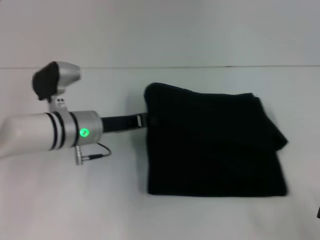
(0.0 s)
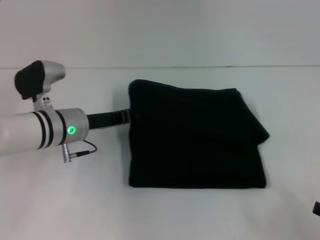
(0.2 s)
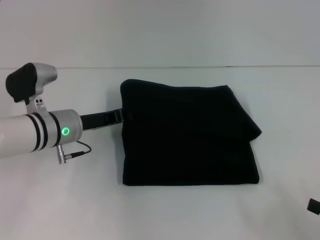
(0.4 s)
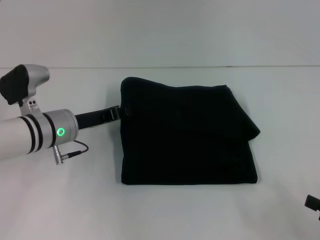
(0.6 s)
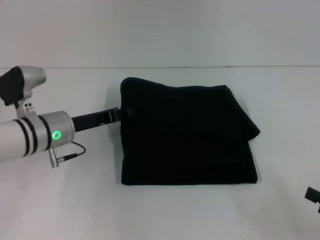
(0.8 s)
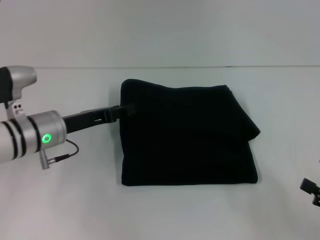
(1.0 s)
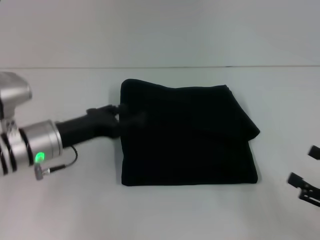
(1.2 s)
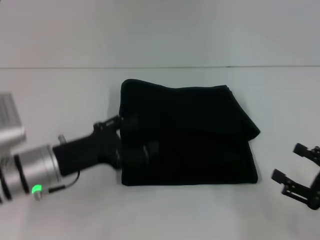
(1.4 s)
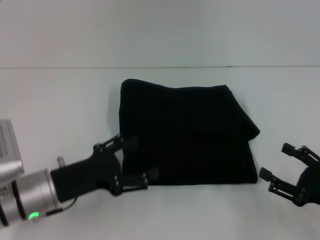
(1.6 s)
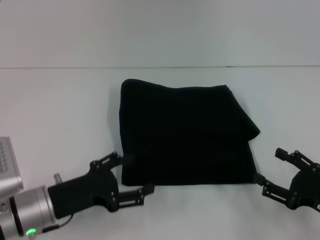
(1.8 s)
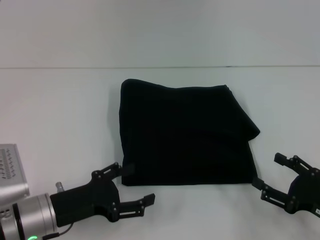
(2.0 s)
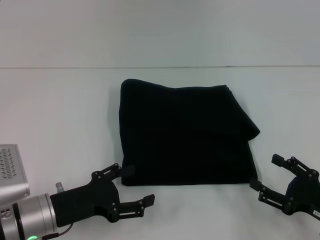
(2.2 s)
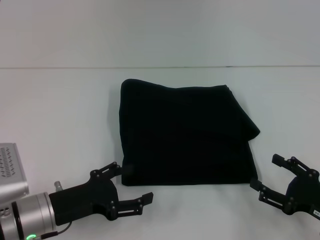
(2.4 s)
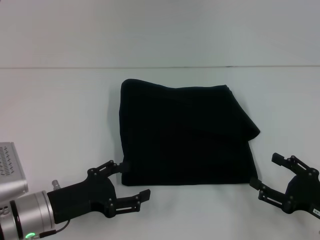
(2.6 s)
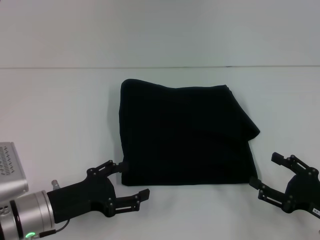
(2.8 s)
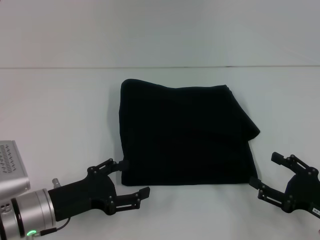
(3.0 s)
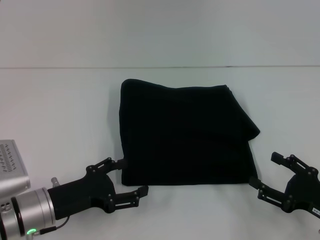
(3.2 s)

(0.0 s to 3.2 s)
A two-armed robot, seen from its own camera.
0.0 s - 1.6 s: The right gripper travels to the left and forward by approximately 10 cm, while the left gripper moves backward and to the left, about 10 cm, and opens.
1.6 s - 3.2 s: There are only small adjustments of the grippers.

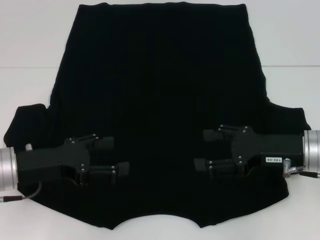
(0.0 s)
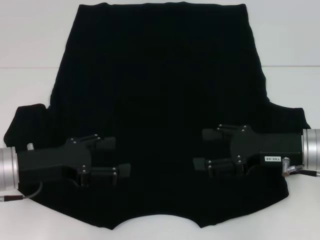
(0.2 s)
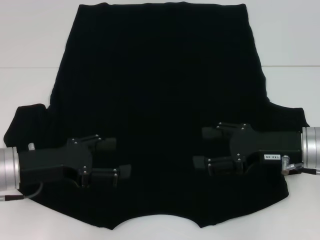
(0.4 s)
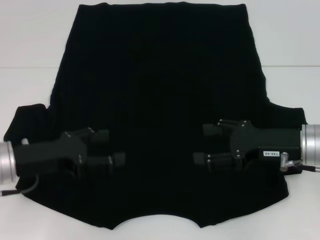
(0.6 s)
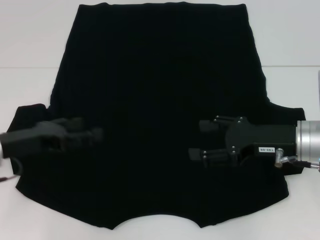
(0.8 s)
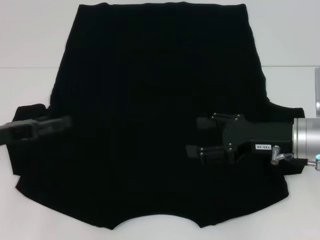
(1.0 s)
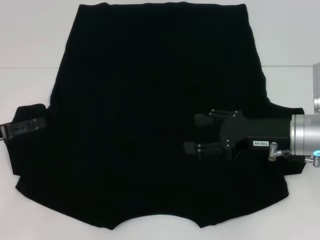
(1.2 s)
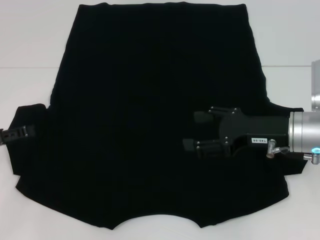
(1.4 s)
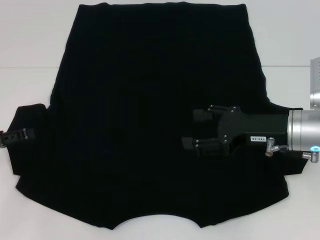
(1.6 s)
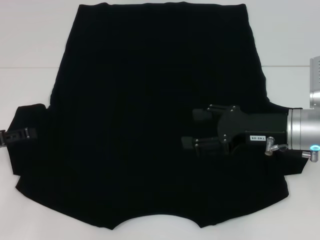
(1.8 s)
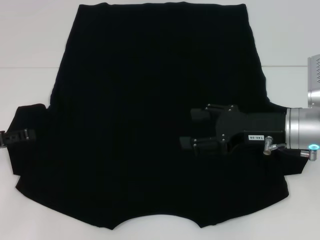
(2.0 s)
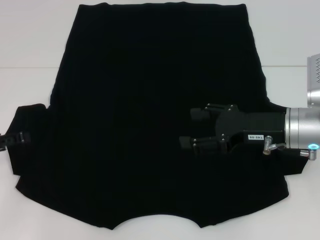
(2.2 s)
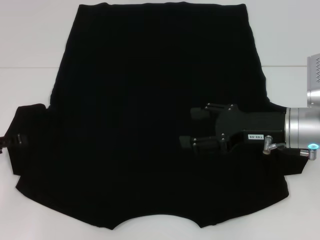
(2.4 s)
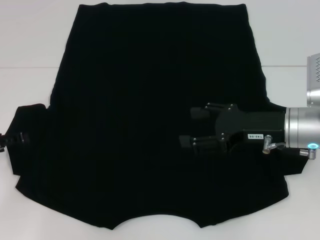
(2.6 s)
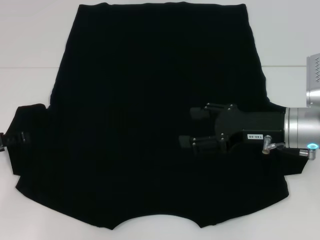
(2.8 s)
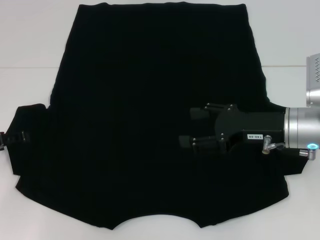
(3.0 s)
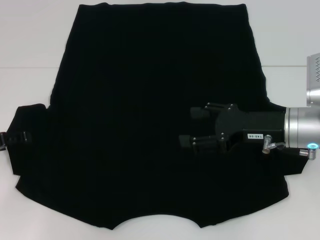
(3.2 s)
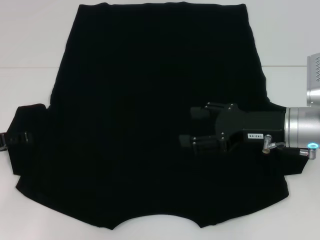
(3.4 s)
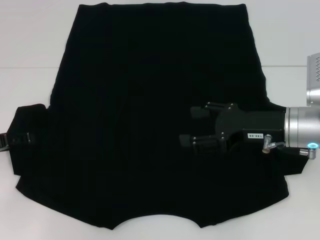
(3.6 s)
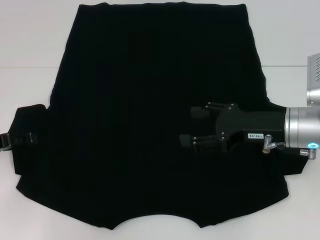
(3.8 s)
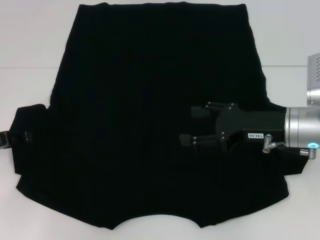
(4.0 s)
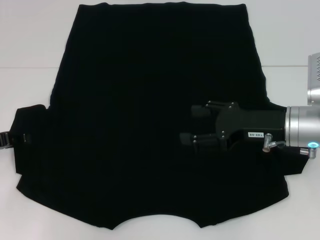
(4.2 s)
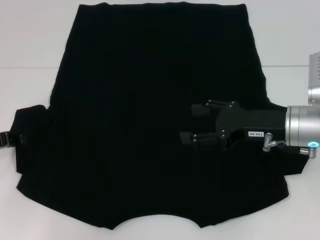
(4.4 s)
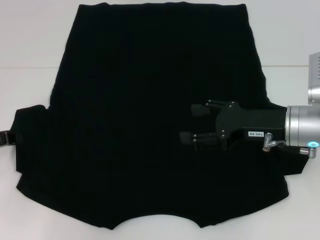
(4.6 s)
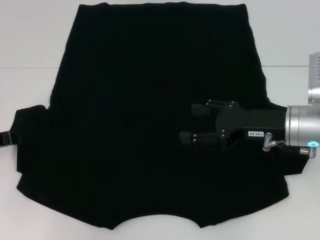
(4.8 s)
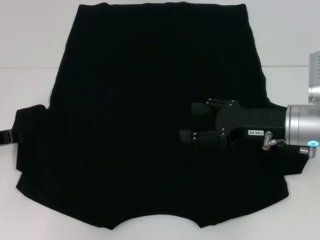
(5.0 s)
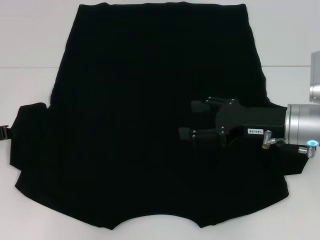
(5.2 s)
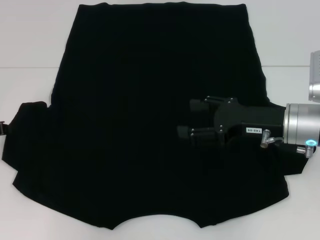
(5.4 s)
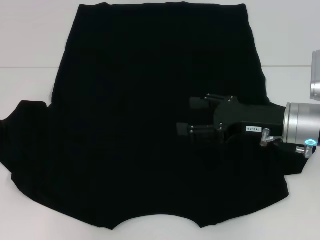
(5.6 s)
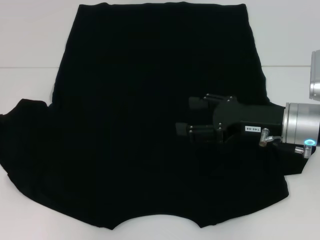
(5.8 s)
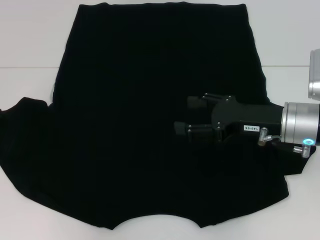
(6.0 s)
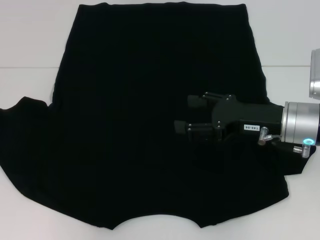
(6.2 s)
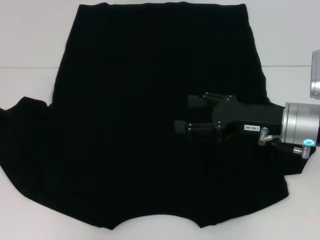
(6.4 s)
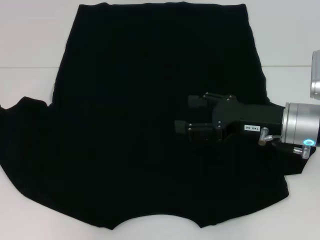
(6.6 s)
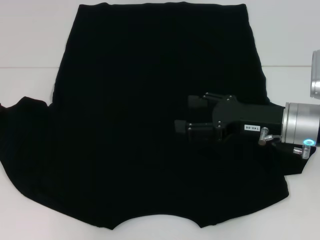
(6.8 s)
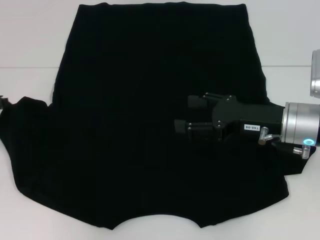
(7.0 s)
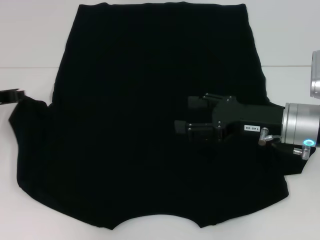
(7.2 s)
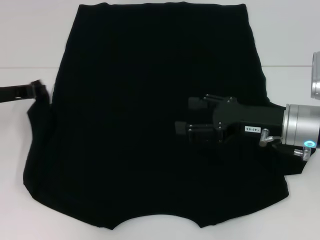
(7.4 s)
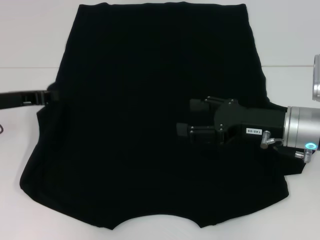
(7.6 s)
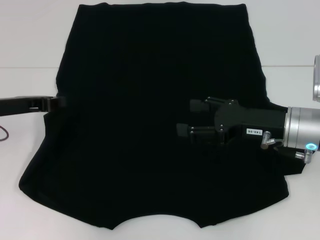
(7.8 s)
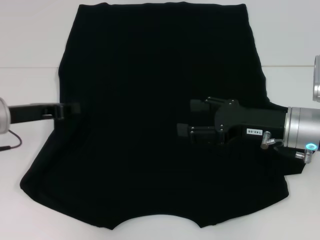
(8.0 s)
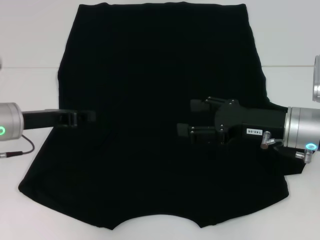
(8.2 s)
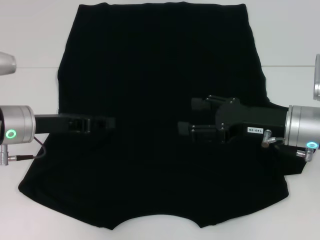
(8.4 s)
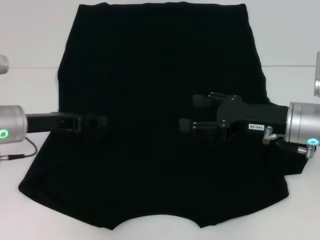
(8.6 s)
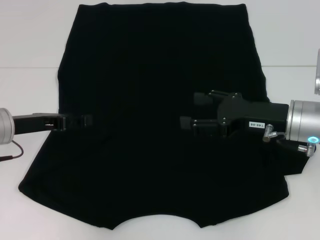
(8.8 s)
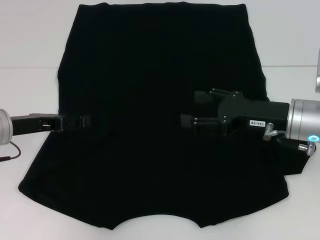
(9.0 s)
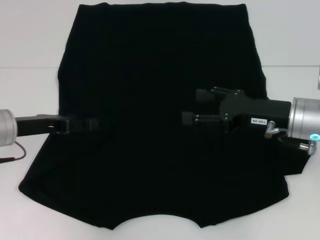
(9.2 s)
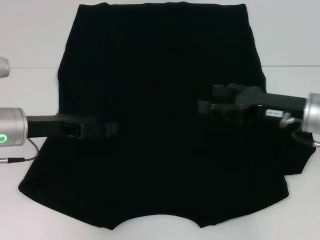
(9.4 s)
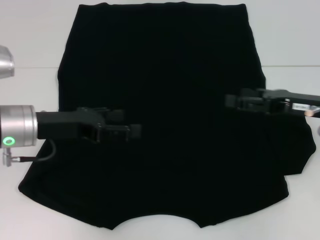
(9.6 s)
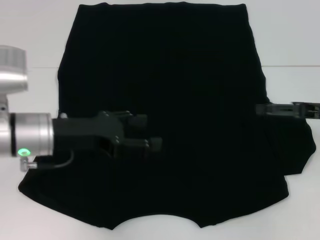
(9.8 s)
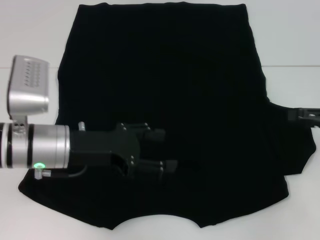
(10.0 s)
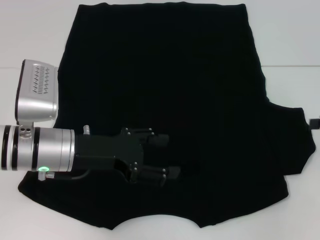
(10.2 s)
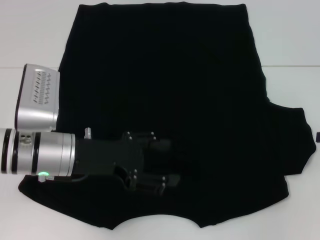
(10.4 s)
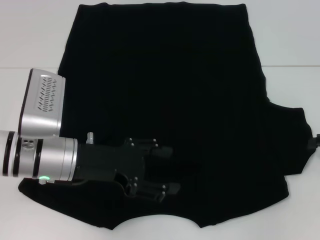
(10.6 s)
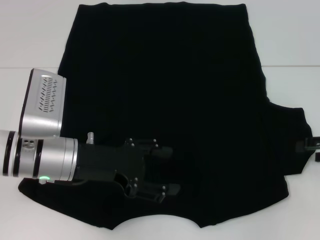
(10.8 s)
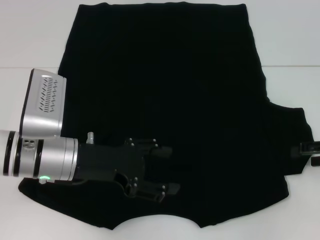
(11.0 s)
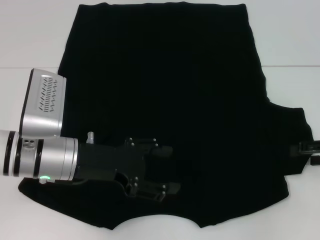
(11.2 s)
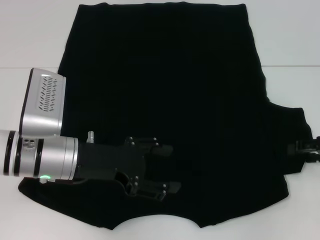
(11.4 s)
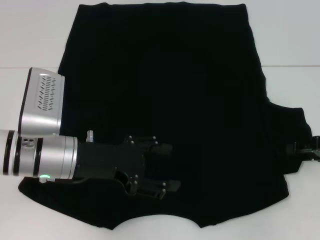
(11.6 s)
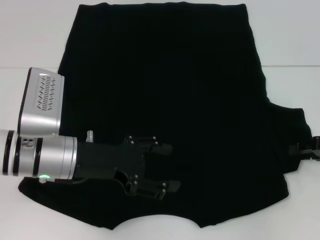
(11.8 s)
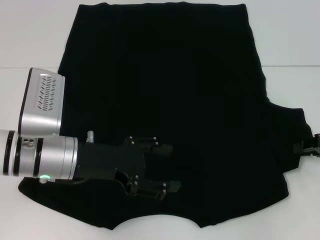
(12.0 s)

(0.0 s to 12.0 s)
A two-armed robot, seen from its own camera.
Step, 0.0 s - 8.4 s: Fold the bottom left sleeve with your left hand.
0.0 s - 1.6 s: The left gripper shifts about 10 cm to the left.
1.6 s - 3.0 s: The grippers stay close to where they were, moving slightly.
3.0 s - 4.4 s: The left gripper closes up.
4.4 s - 6.0 s: The left gripper closes its fingers.
6.0 s - 7.6 s: The left gripper shifts roughly 5 cm to the right.
7.6 s - 9.0 s: The left gripper opens.
9.0 s - 10.4 s: The left gripper shifts about 10 cm to the right, while the right gripper shifts roughly 20 cm to the right.
10.4 s - 12.0 s: The right gripper shifts by some 5 cm, and closes up.

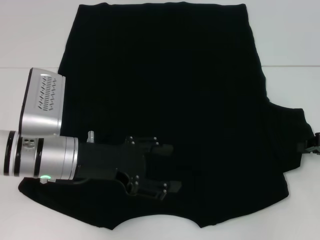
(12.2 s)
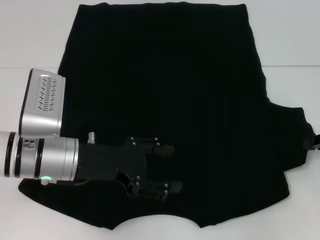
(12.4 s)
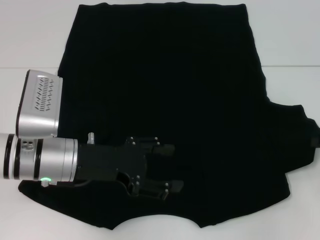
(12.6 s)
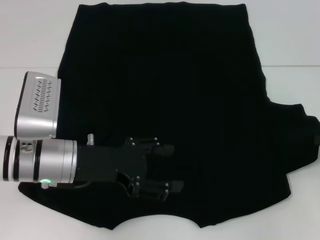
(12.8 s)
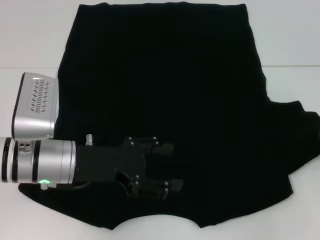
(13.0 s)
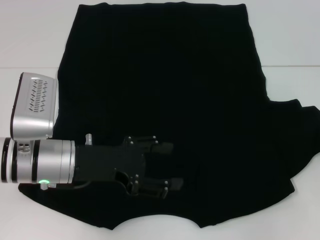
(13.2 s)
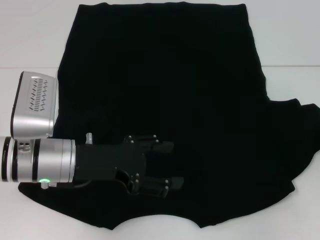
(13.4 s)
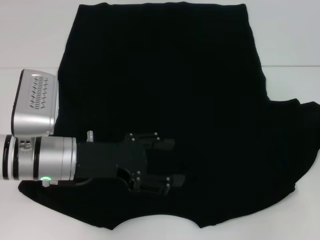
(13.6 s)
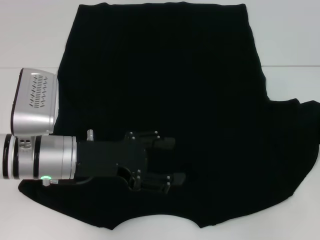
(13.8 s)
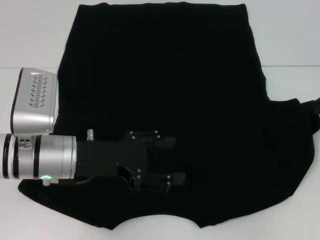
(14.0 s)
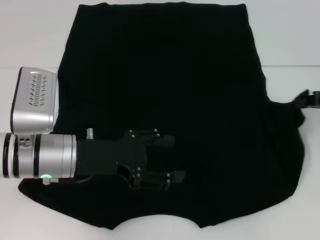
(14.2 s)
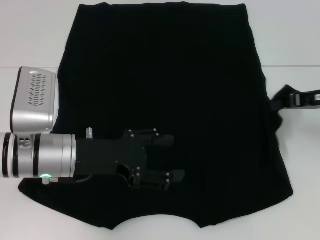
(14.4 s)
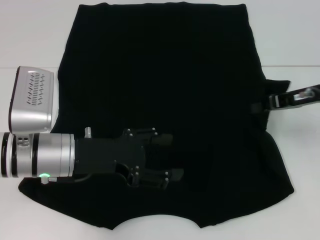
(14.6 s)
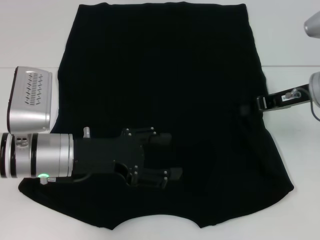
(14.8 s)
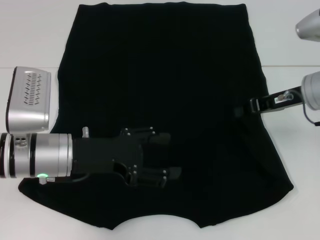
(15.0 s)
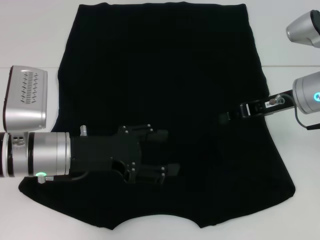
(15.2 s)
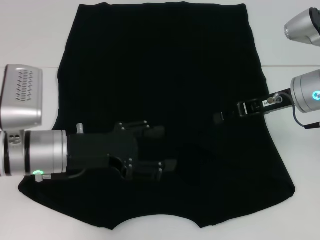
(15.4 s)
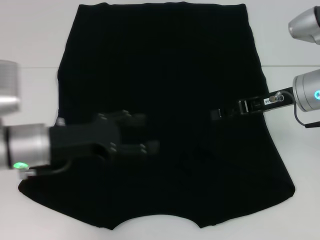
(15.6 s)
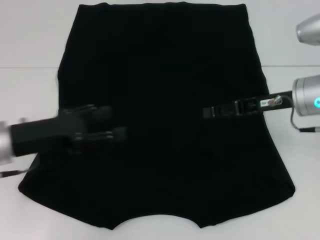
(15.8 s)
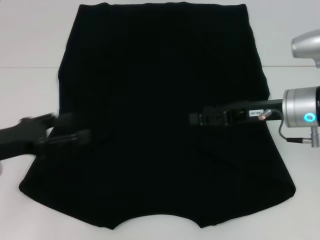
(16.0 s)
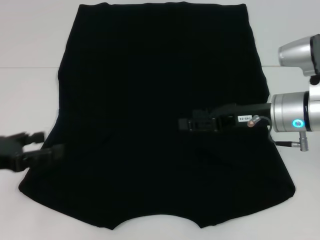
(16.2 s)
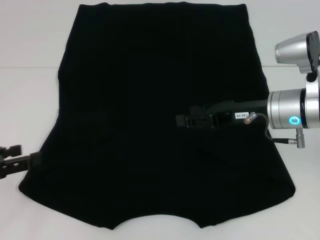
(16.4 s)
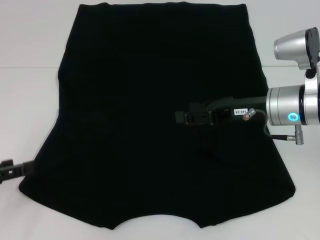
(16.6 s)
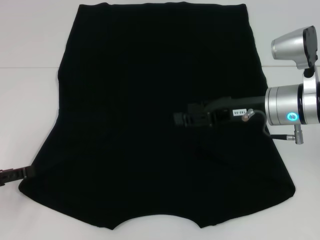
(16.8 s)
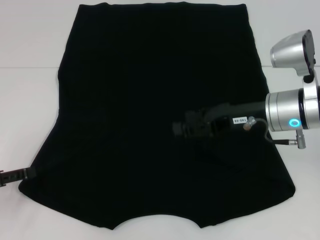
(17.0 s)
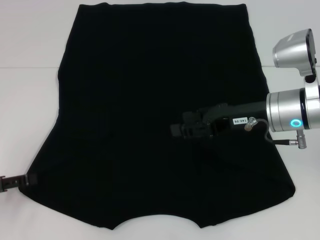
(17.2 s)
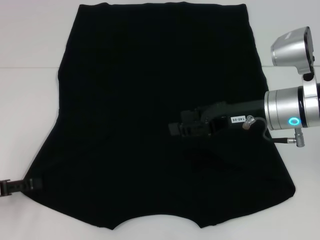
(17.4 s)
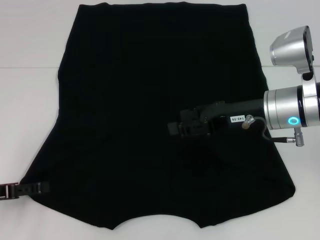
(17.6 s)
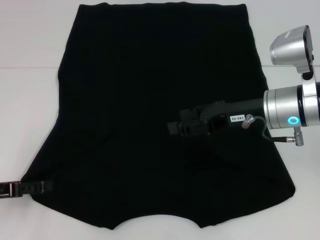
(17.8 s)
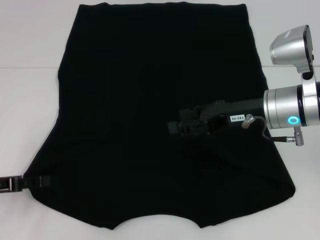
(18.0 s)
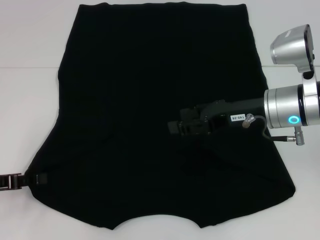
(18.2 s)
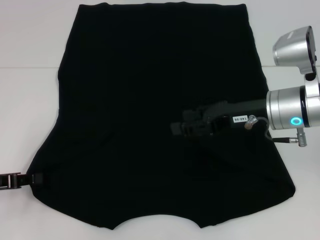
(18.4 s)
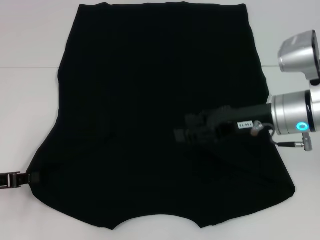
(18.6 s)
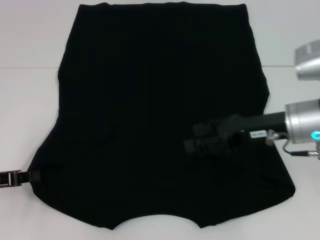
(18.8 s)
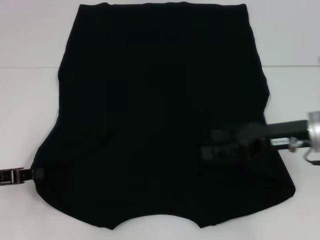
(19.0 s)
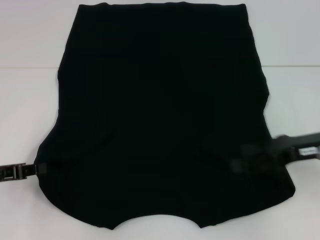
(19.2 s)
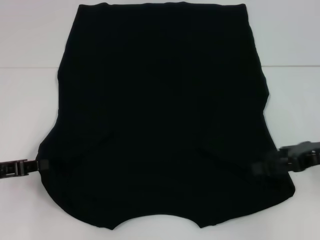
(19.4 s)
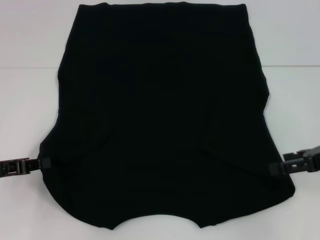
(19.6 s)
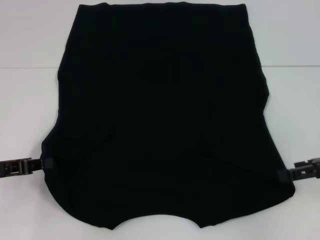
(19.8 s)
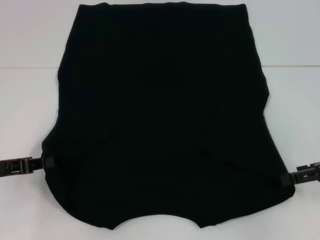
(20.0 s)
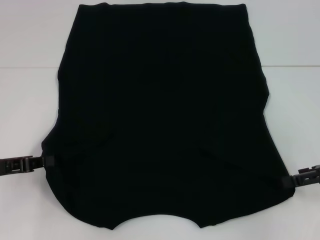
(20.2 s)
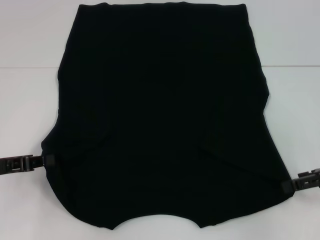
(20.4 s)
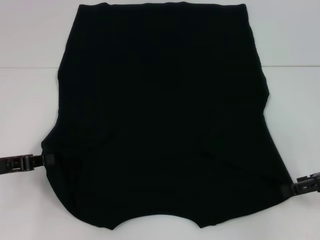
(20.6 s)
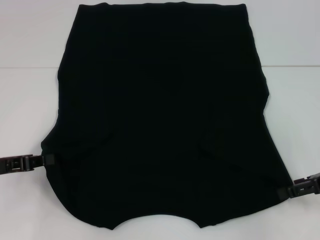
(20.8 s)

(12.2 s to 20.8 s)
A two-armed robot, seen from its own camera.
Step, 12.2 s - 15.2 s: Fold the bottom right sleeve with your right hand.
Step, 15.4 s - 18.6 s: Grab the bottom left corner with your left hand.
12.2 s - 13.6 s: The grippers make only small movements.
13.6 s - 15.0 s: The right gripper shifts some 15 cm to the left.
15.0 s - 16.6 s: The left gripper moves to the left, about 20 cm. Meanwhile the right gripper is displaced to the left by approximately 5 cm, and opens its fingers.
16.6 s - 18.0 s: The grippers make only small movements.
18.0 s - 19.4 s: The left gripper closes its fingers; the right gripper moves to the right, some 10 cm.
19.4 s - 20.8 s: There are only small adjustments of the grippers.
